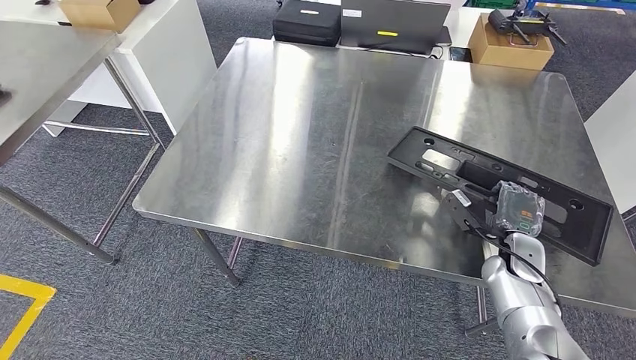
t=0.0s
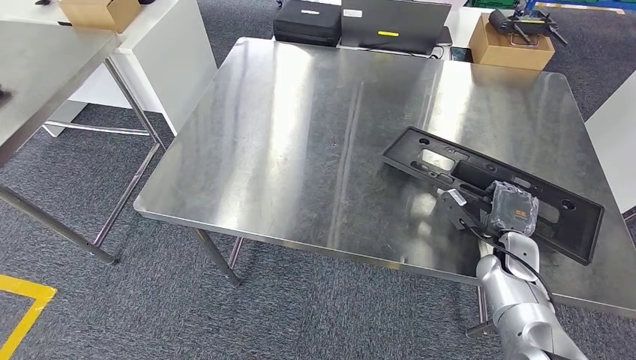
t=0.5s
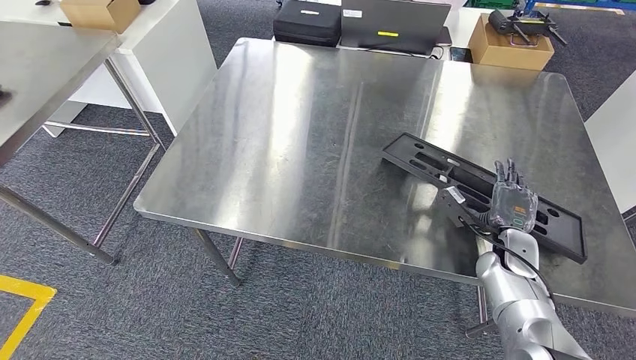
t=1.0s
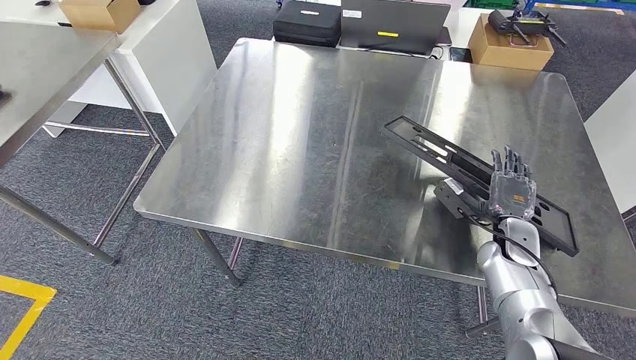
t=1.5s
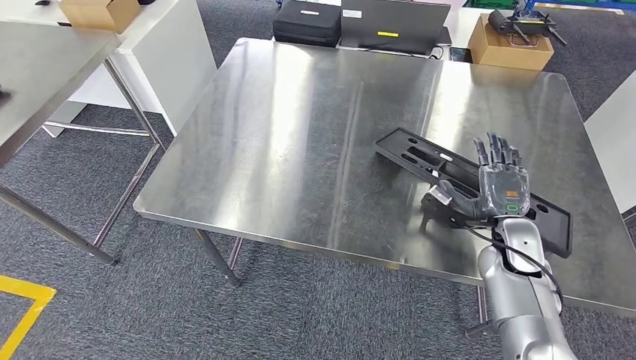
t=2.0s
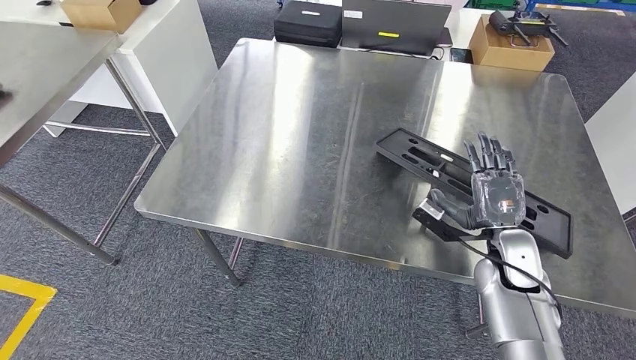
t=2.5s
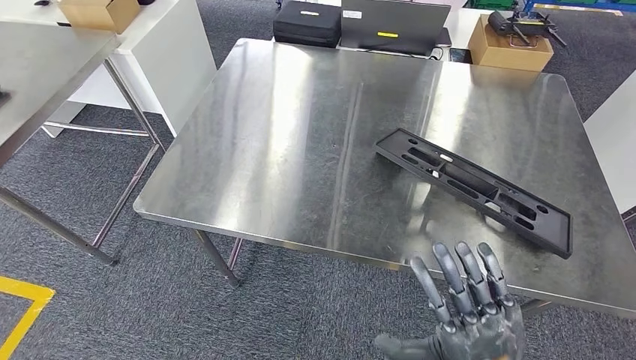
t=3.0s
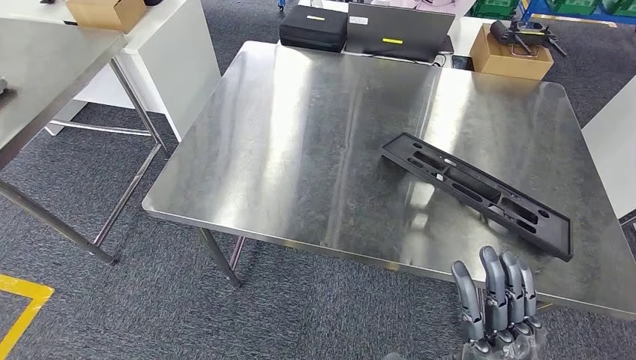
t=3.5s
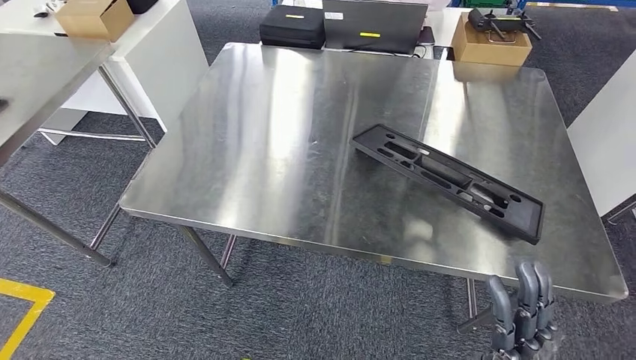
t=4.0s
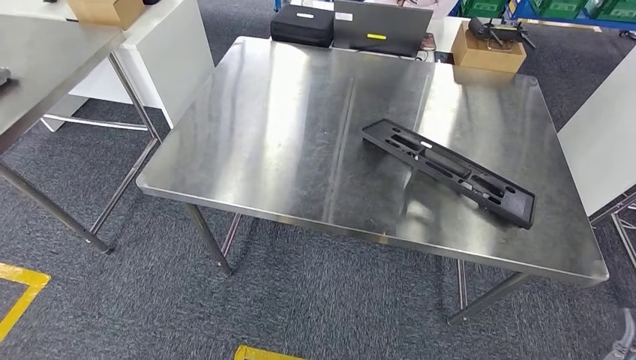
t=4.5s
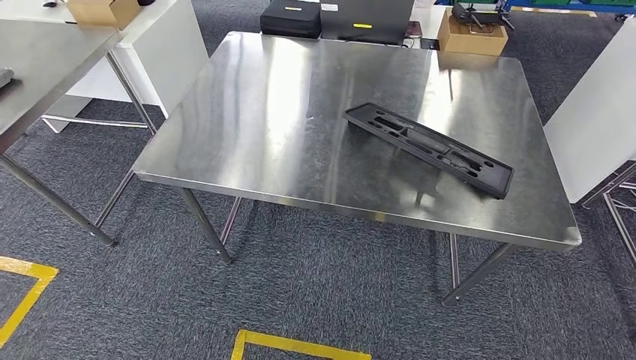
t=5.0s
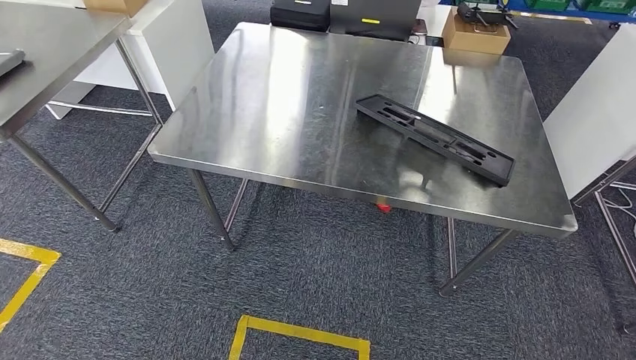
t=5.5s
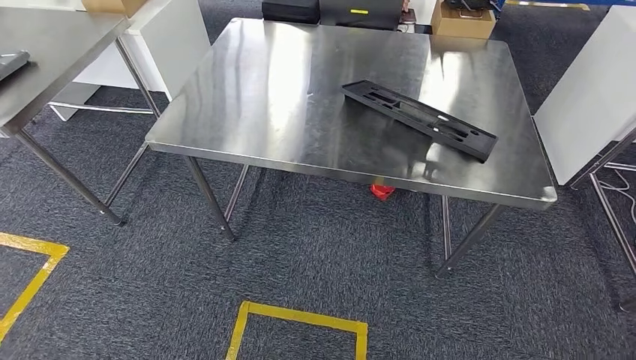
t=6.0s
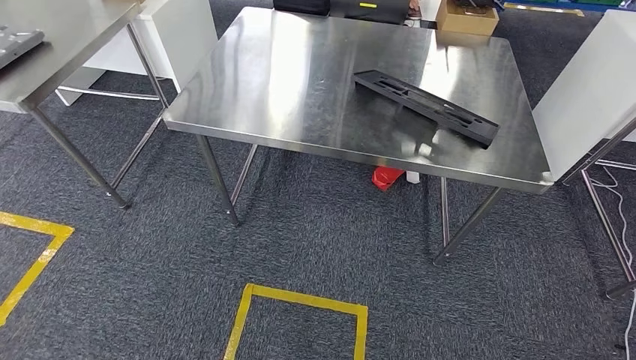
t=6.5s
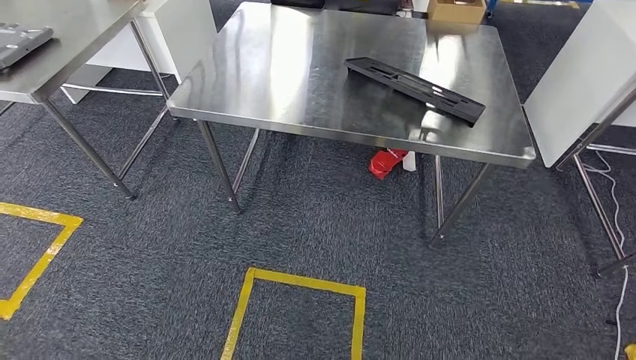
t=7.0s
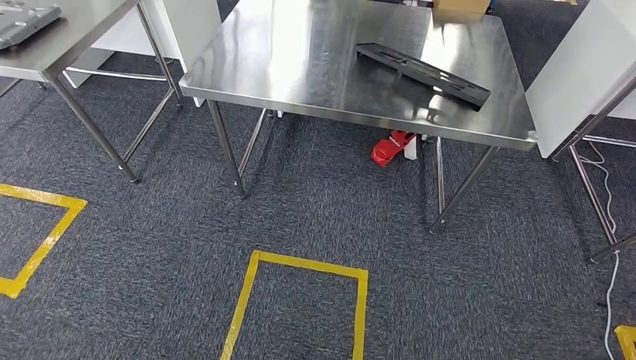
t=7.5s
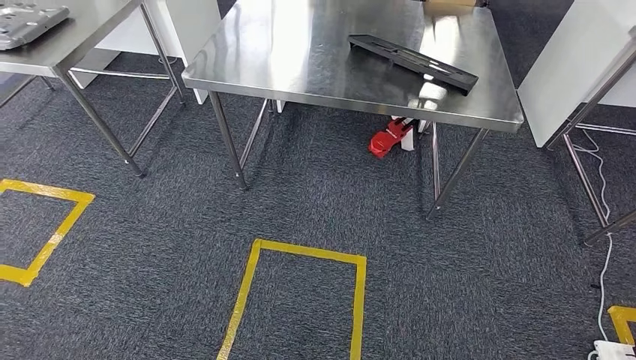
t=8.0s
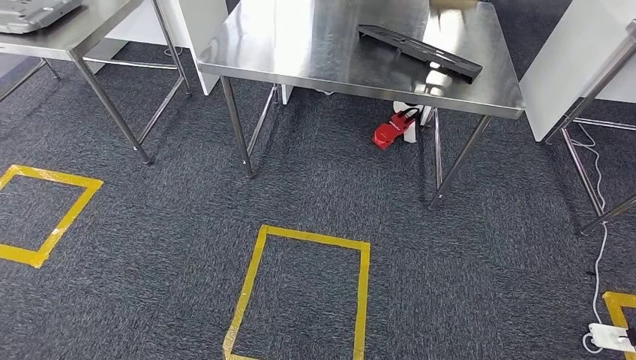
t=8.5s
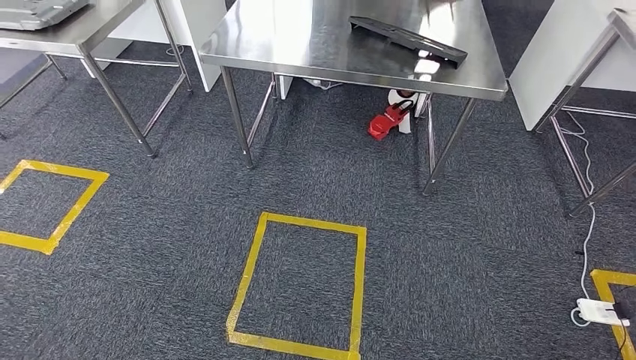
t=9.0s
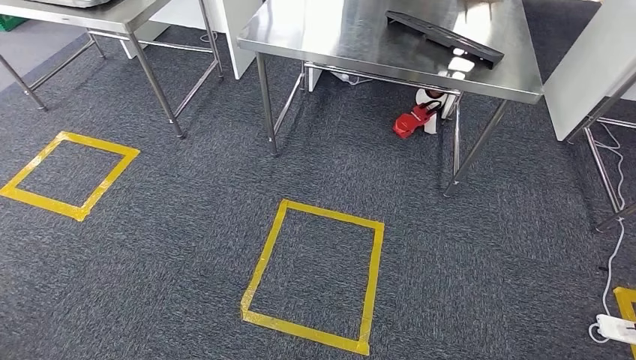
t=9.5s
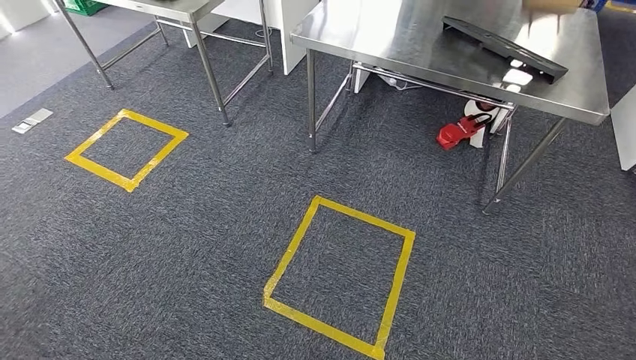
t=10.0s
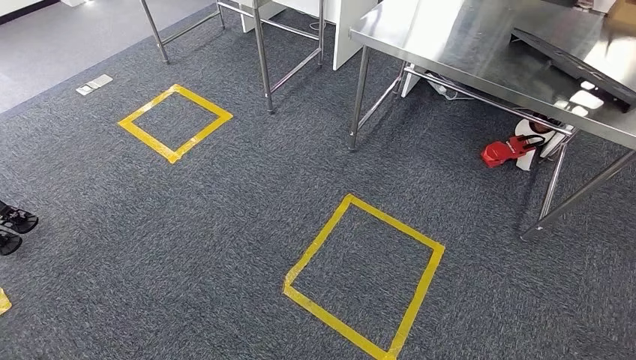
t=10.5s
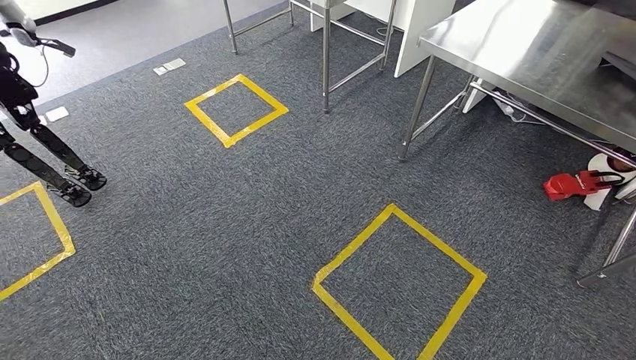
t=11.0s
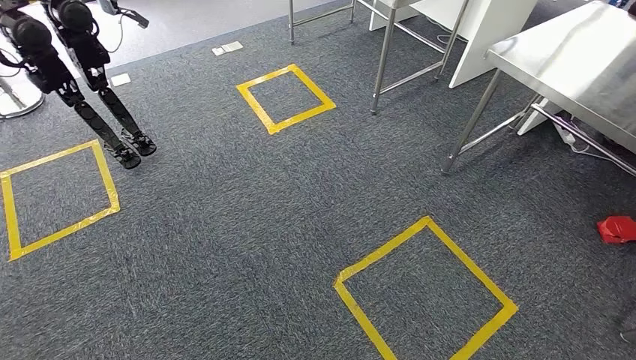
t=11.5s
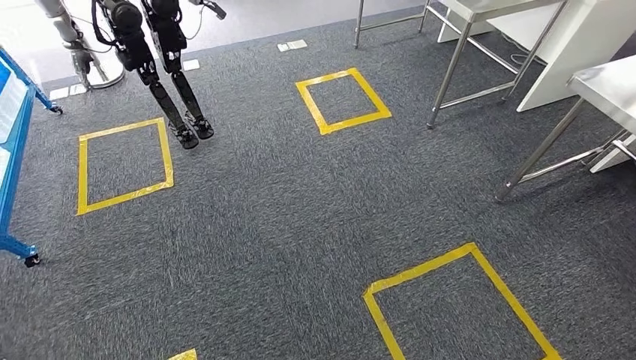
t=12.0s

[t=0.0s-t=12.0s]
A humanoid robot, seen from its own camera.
Step, t=0.0s to t=7.0s: Insert the large material into the corresponding slot on the workbench.
t=0.0s to t=2.0s: The right hand ends up about 5 cm from where it was.

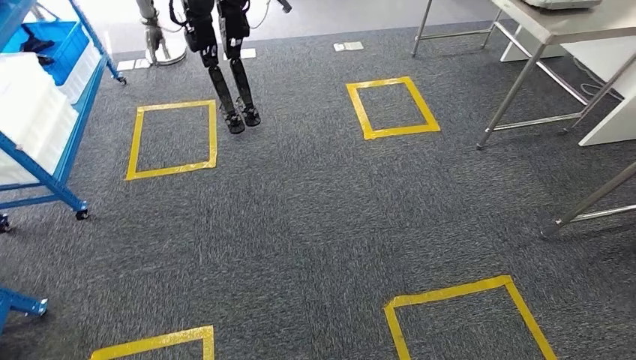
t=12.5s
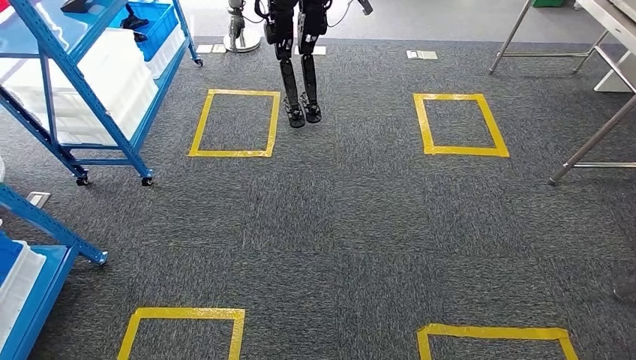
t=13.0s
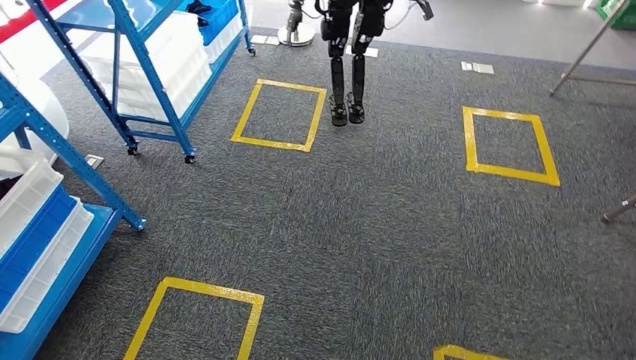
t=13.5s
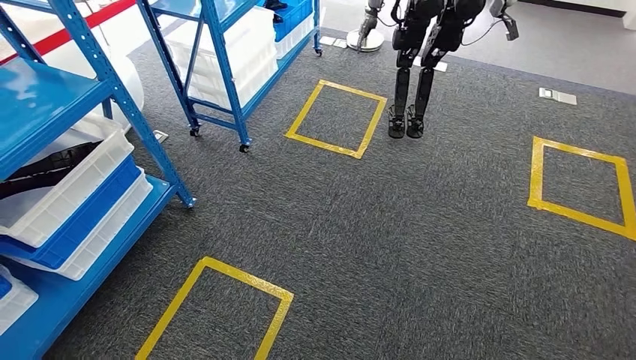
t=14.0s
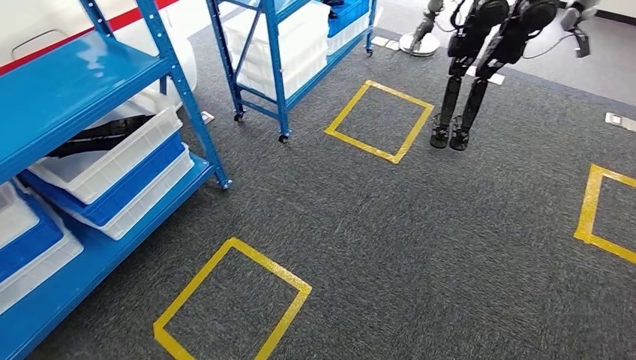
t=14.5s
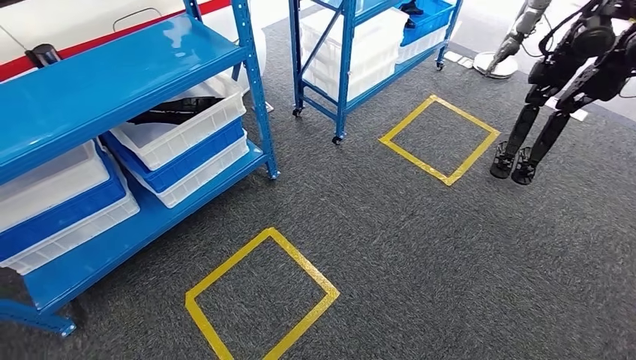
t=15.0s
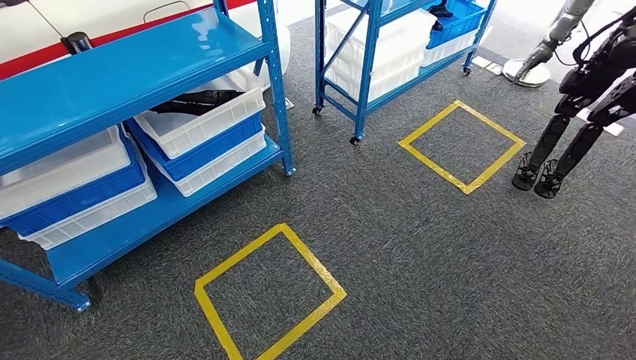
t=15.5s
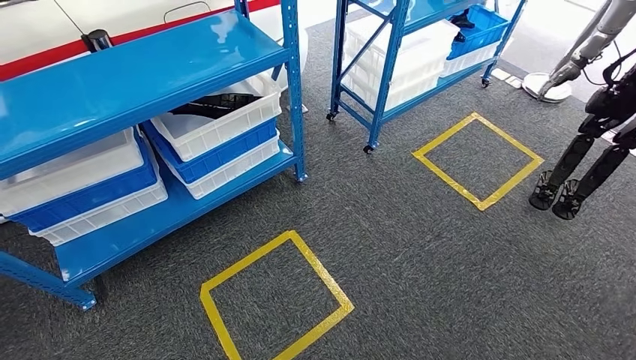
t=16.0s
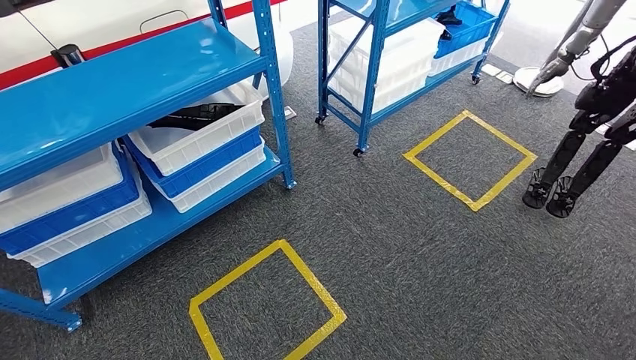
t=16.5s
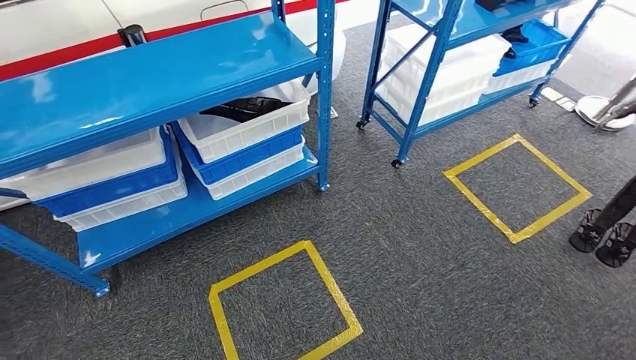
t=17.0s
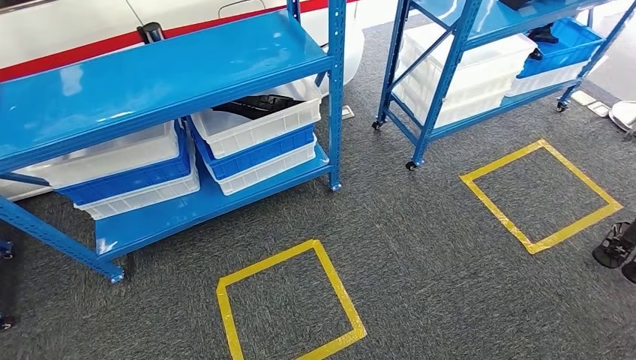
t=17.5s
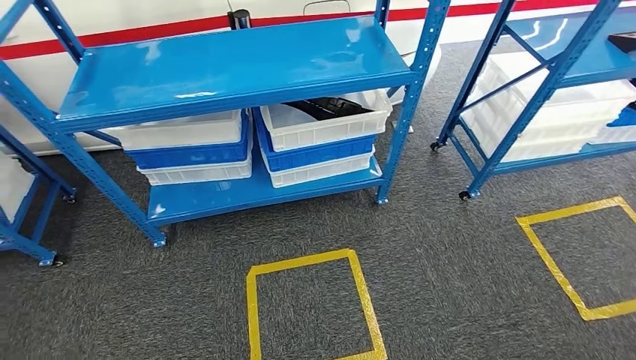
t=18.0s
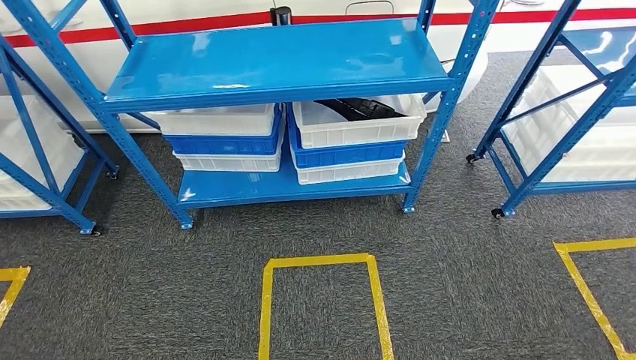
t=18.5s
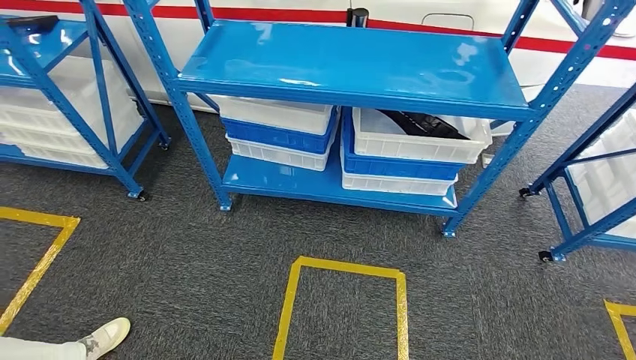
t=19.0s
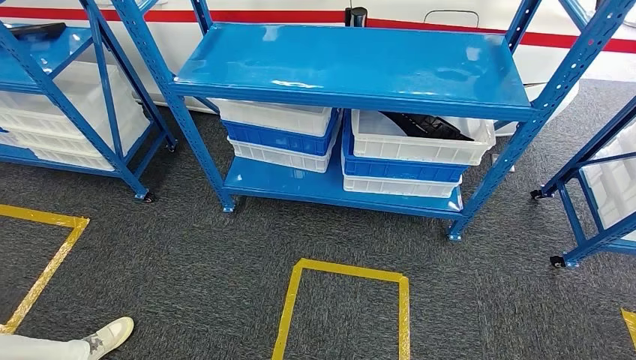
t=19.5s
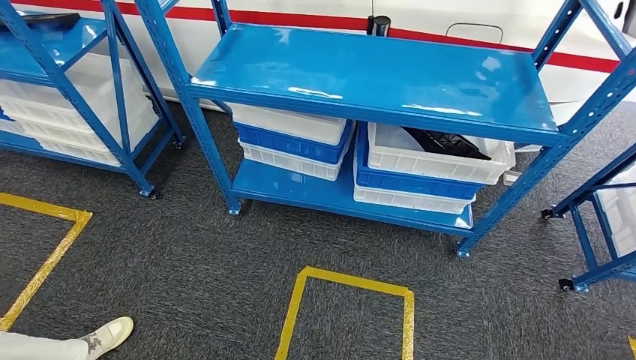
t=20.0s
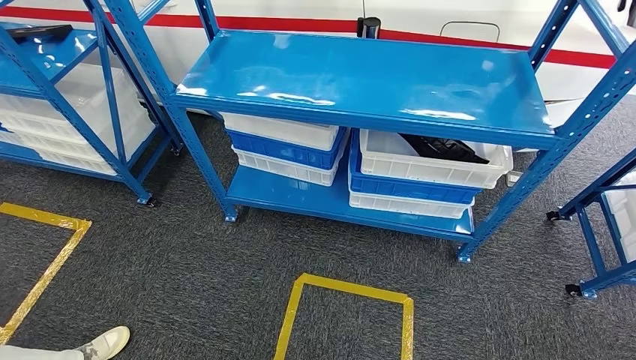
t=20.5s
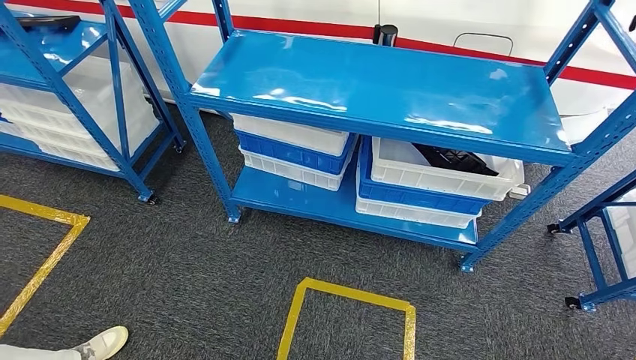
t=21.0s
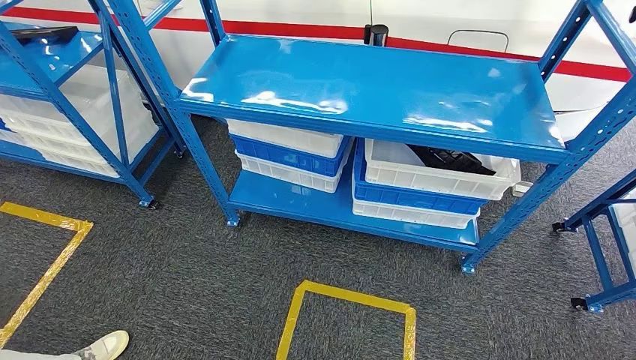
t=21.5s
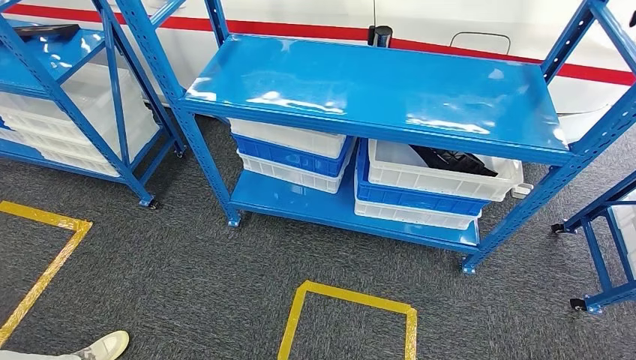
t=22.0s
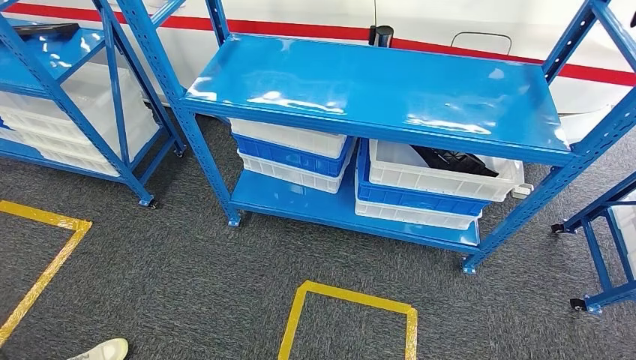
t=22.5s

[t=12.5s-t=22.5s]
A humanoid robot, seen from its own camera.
Step, t=12.5s to t=22.5s: Move to the initial position of the shelf.
